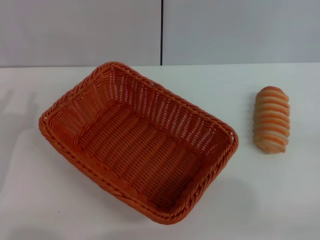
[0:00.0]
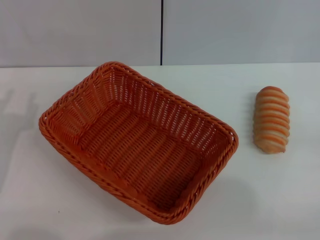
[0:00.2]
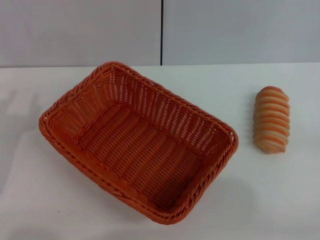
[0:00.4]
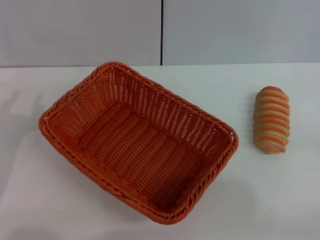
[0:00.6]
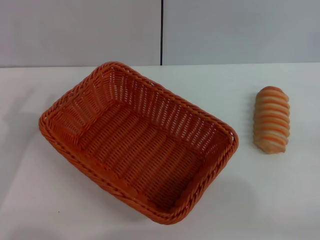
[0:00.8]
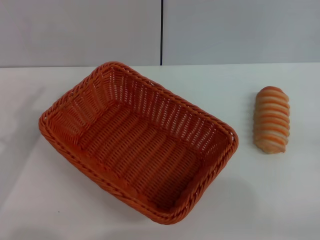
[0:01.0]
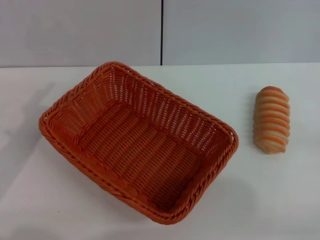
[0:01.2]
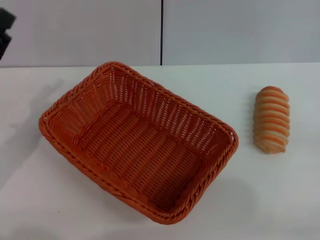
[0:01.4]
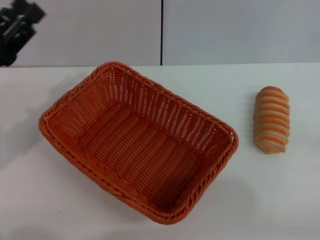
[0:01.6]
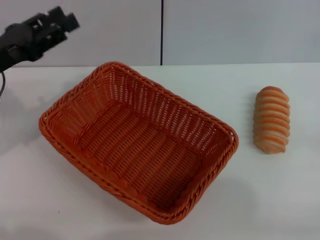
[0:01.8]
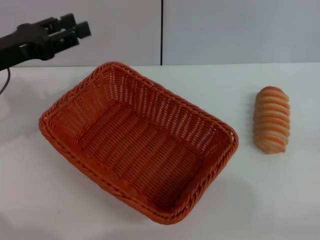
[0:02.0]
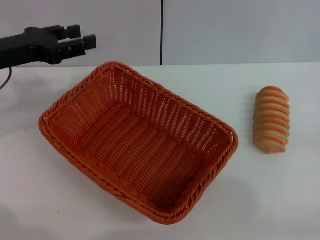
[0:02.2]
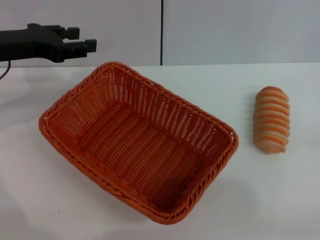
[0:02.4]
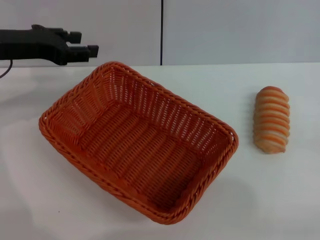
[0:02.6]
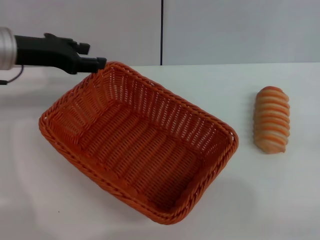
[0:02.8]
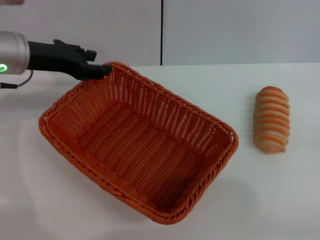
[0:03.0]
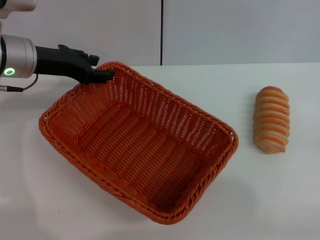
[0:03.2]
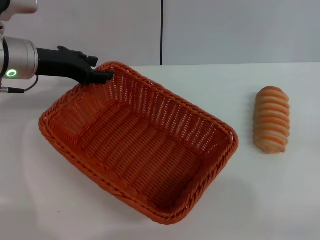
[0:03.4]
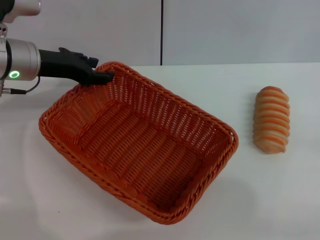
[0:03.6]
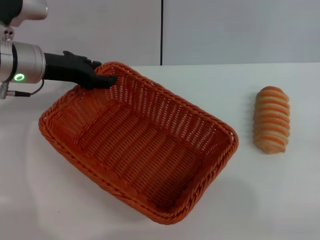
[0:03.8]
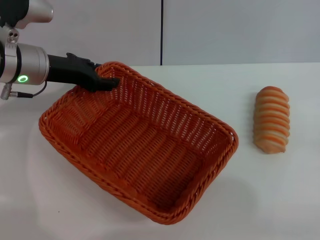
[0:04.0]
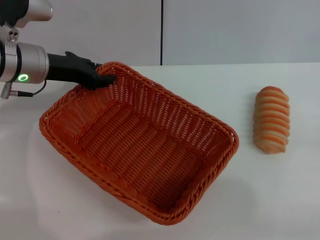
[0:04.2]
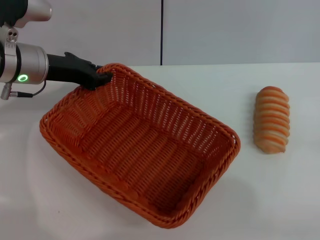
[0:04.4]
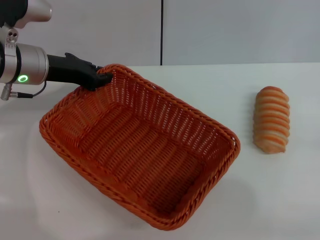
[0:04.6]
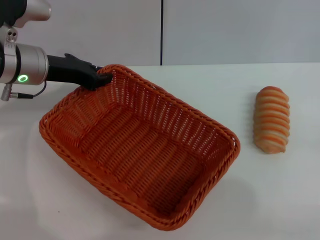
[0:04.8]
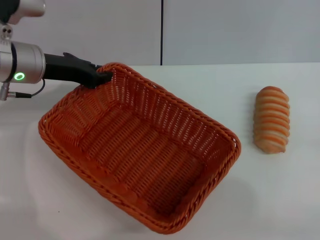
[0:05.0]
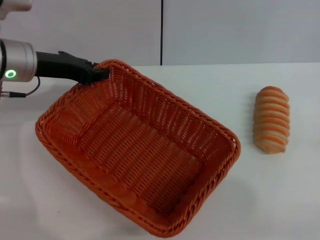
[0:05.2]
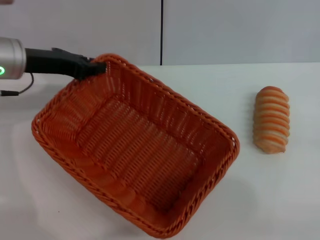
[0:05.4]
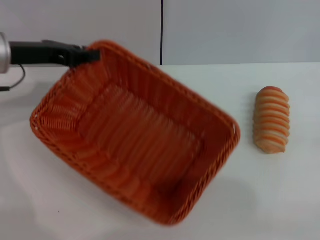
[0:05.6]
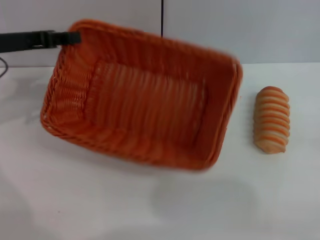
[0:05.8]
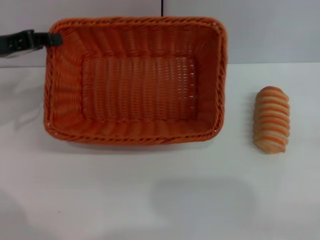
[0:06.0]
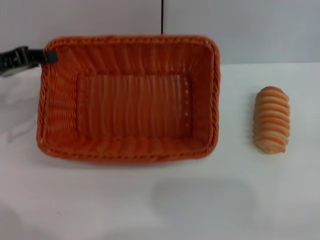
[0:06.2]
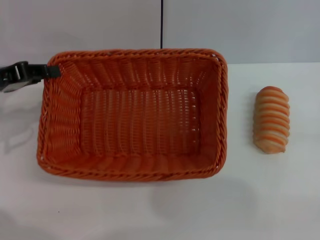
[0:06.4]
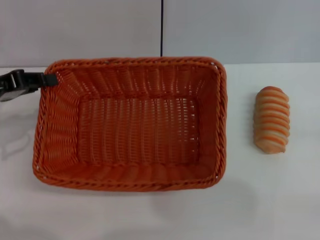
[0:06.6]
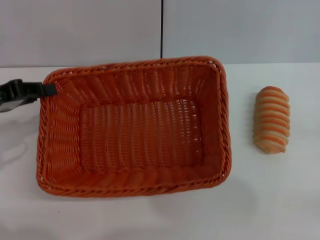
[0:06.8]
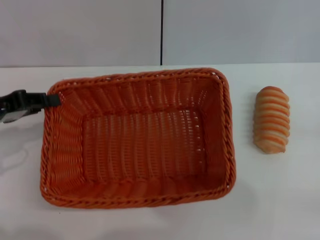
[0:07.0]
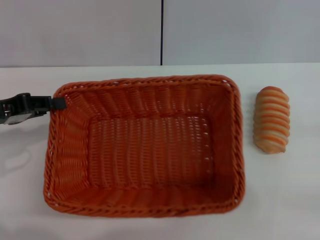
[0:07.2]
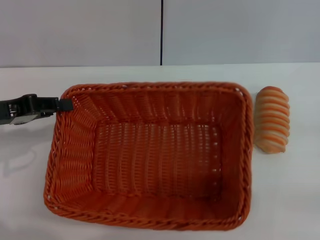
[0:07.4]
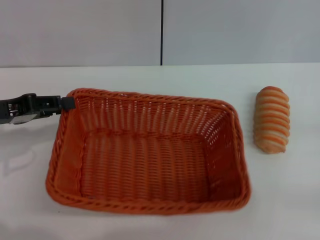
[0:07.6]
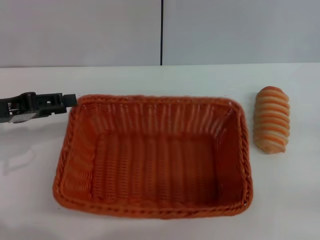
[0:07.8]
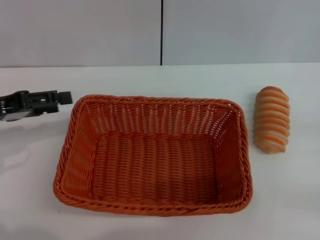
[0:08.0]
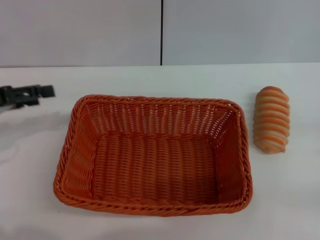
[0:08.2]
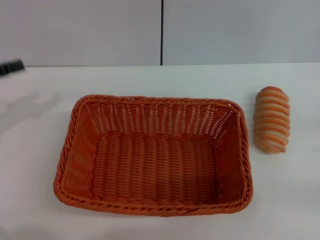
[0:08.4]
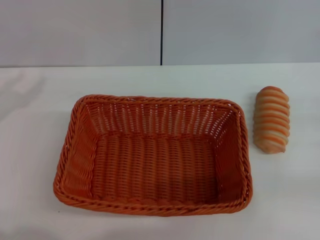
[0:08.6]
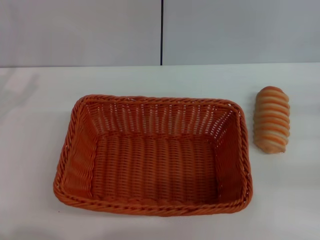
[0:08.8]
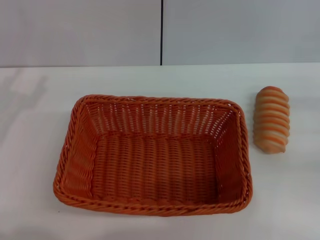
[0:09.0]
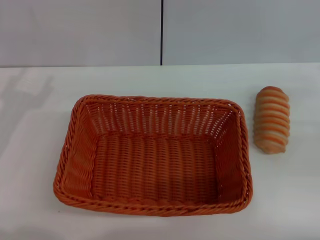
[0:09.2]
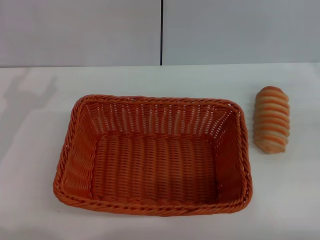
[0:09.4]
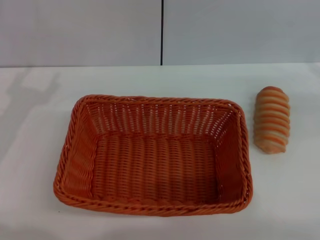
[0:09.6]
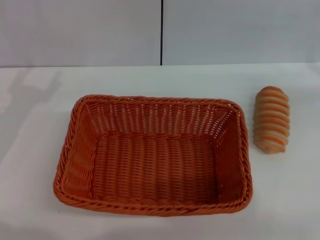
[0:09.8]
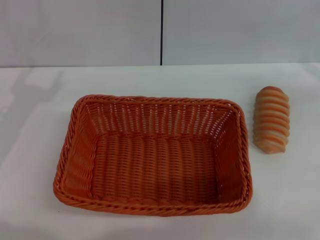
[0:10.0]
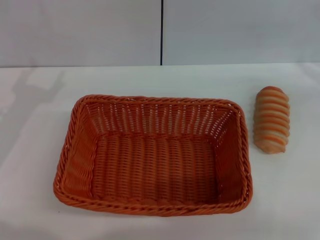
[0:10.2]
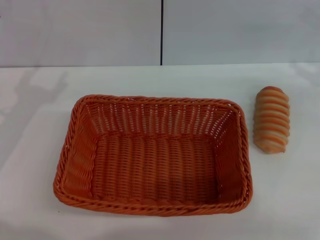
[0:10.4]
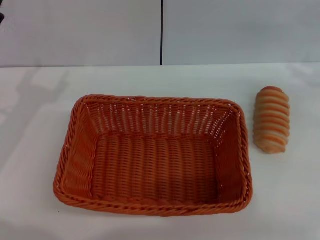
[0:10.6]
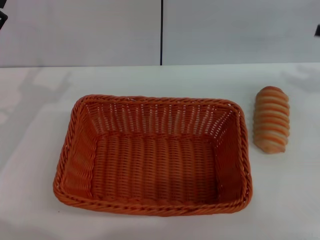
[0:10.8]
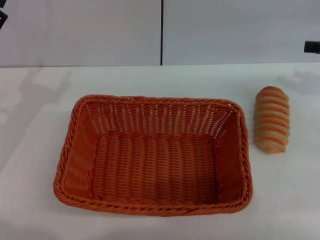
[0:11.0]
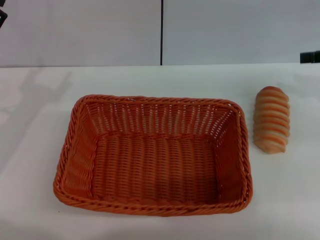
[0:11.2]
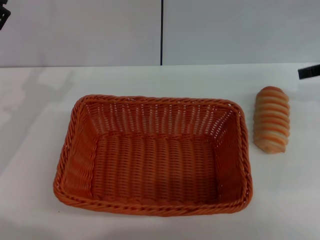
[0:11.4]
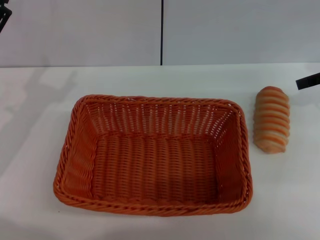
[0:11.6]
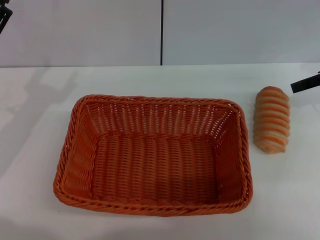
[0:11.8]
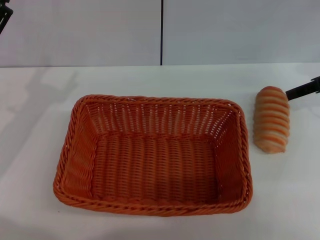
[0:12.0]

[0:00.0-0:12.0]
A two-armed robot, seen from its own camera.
Step, 0:00.0 to 0:06.0: Pick up the light basket with the left gripper.
Step, 0:06.2 to 0:08.2: Place the light basket in the center of view with the left gripper.
0:00.0 to 0:01.6: The left gripper travels forward by approximately 5 cm.
0:01.6 to 0:03.0: The left gripper goes roughly 10 cm forward and to the right.
0:03.0 to 0:04.4: The left gripper closes its fingers.
0:04.4 to 0:06.0: The left gripper shifts approximately 10 cm to the left.
0:06.0 to 0:07.6: The left gripper moves backward, approximately 5 cm.
0:07.6 to 0:09.0: The left gripper changes place by some 5 cm, and opens. Meanwhile the right gripper moves forward, roughly 5 cm.

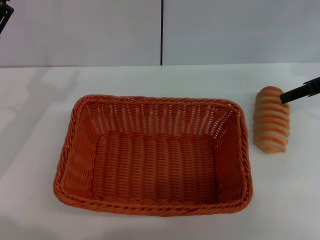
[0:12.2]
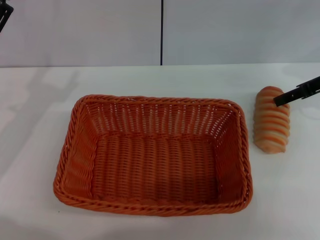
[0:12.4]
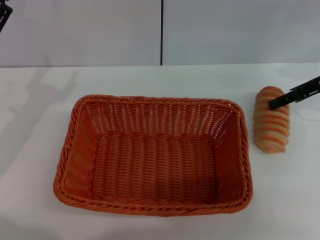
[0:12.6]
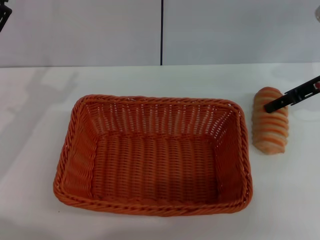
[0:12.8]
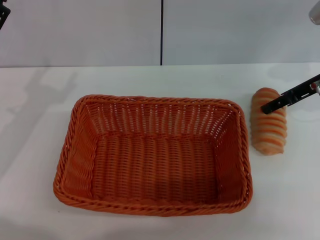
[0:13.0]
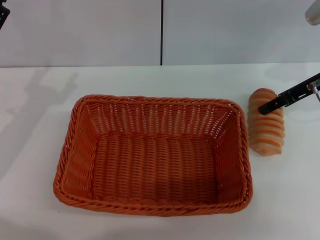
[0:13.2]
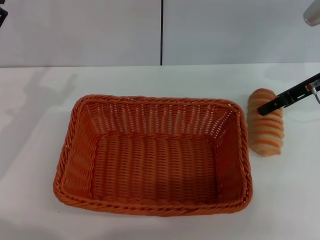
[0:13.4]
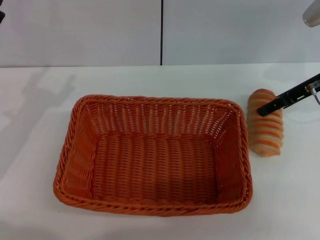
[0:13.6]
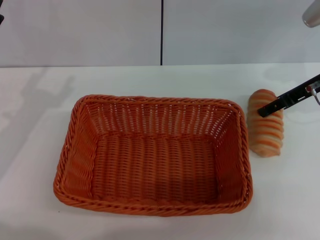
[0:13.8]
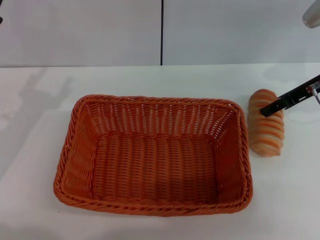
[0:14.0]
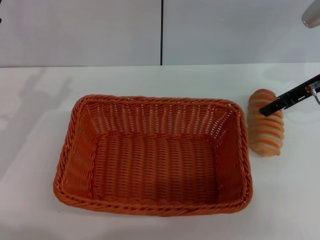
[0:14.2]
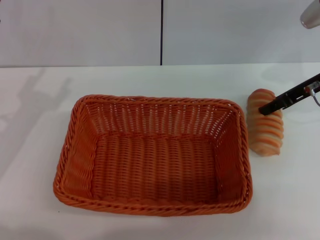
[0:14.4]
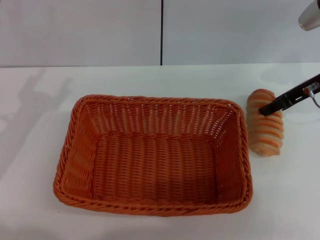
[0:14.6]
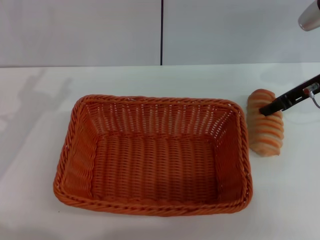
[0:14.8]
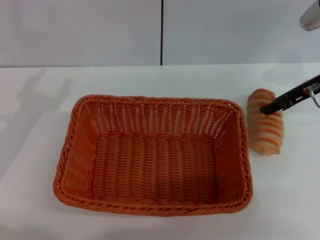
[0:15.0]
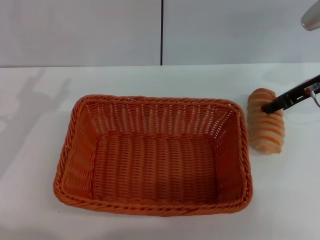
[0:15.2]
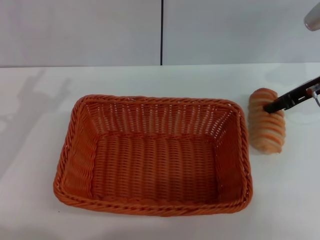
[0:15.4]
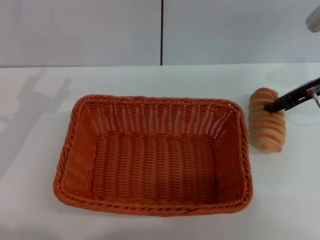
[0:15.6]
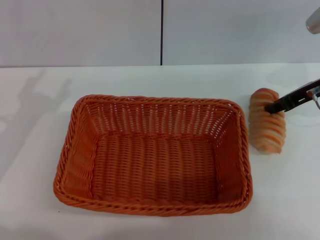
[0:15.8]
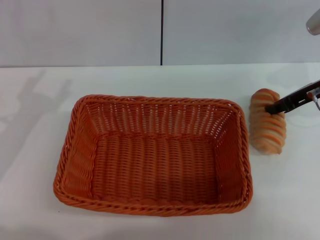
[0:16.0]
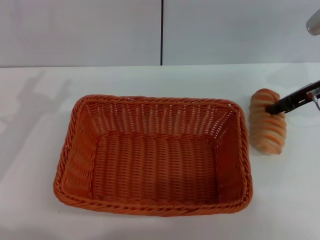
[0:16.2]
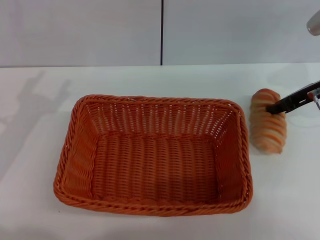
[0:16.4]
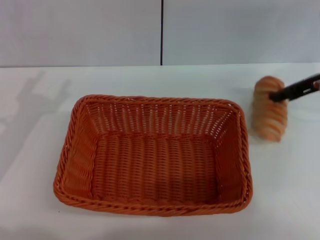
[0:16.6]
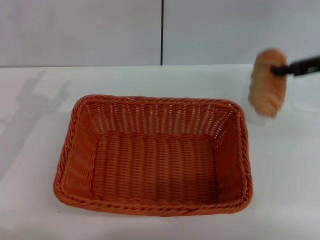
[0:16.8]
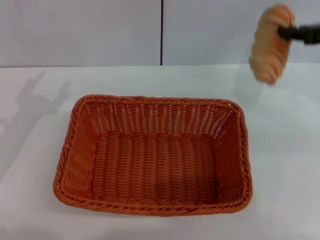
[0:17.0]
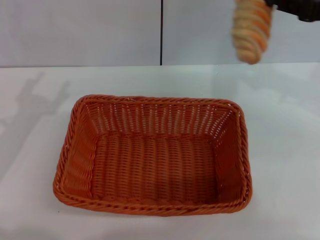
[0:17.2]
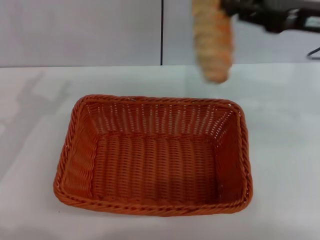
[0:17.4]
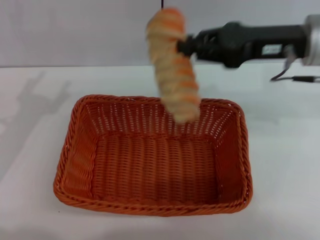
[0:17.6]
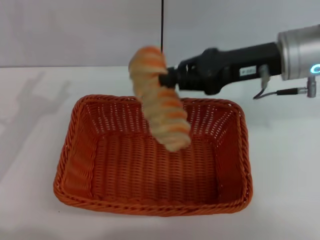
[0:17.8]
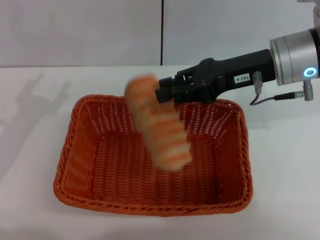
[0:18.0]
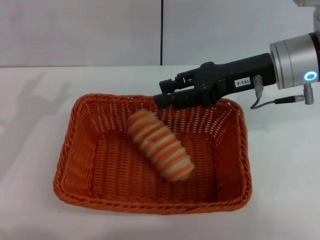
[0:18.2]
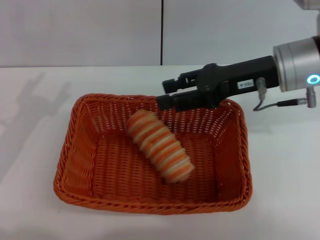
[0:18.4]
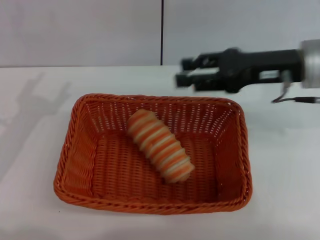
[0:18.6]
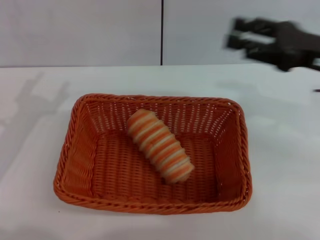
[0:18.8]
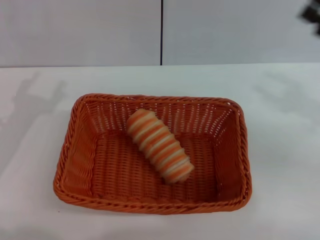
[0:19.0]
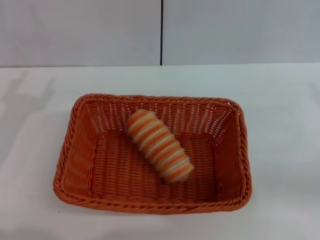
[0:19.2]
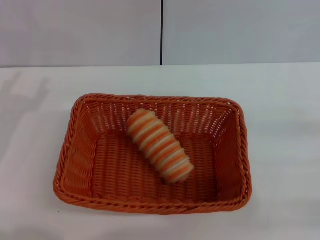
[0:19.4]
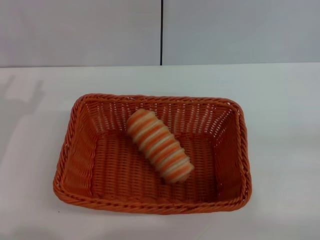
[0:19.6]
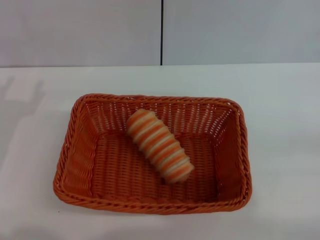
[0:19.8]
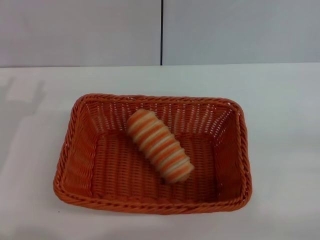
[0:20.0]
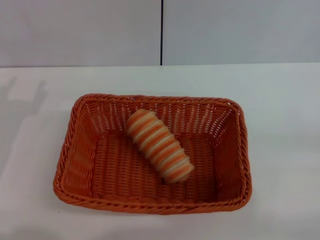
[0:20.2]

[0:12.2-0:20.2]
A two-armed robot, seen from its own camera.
Step, 0:12.2 to 0:17.0: Pick up the long bread with the right gripper.
Step, 0:17.2 to 0:18.4: Place the long bread into the light basket with the right gripper.
0:12.2 to 0:13.8: The grippers make only small movements.
0:13.8 to 0:15.4: The right gripper closes.
0:15.4 to 0:17.0: The right gripper travels upward by approximately 5 cm.
0:17.0 to 0:18.6: The right gripper moves to the left, roughly 10 cm, and opens.
0:18.6 to 0:20.2: The right gripper is displaced to the right, backward and downward by some 25 cm.

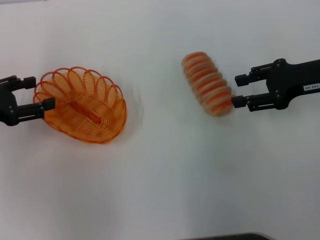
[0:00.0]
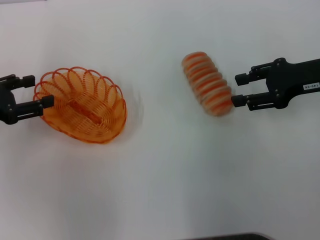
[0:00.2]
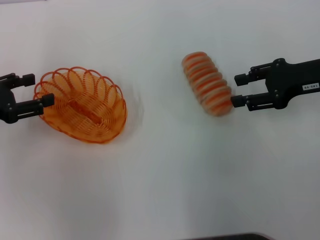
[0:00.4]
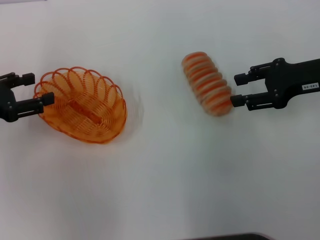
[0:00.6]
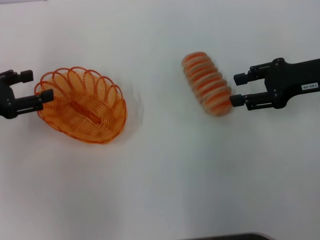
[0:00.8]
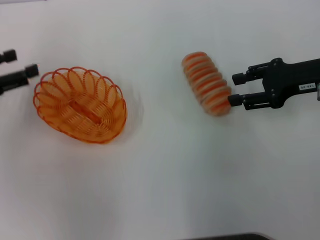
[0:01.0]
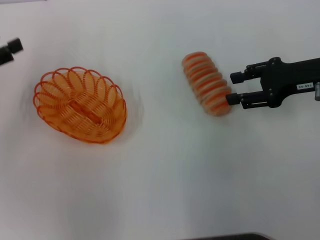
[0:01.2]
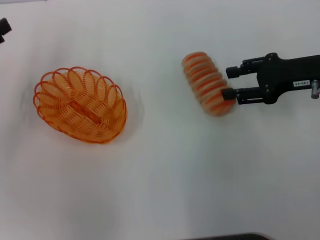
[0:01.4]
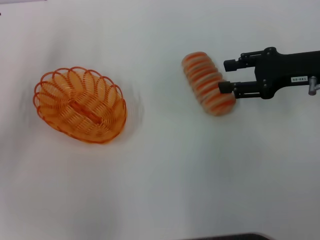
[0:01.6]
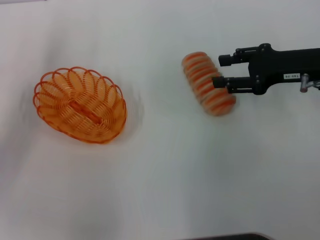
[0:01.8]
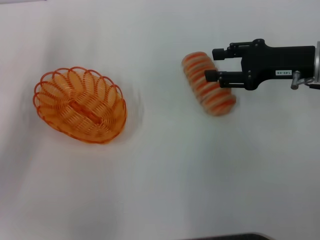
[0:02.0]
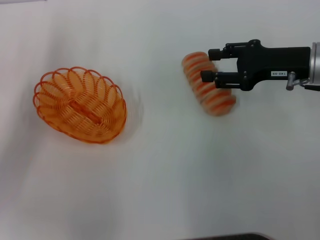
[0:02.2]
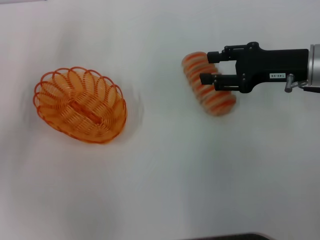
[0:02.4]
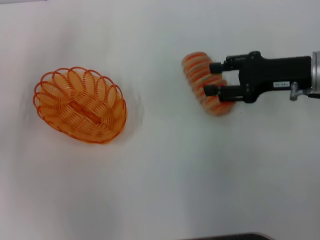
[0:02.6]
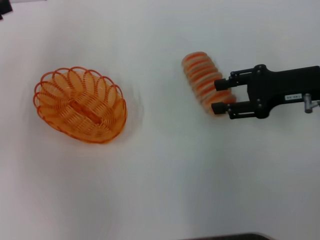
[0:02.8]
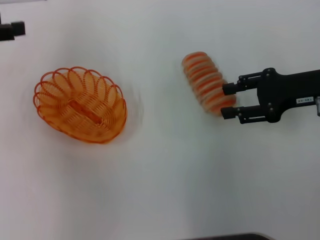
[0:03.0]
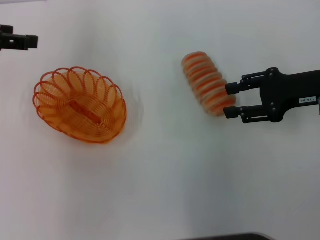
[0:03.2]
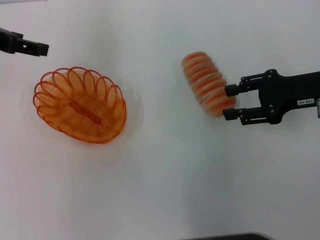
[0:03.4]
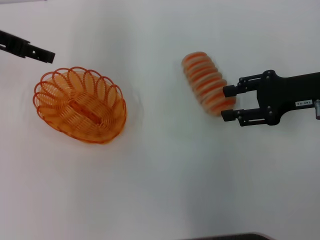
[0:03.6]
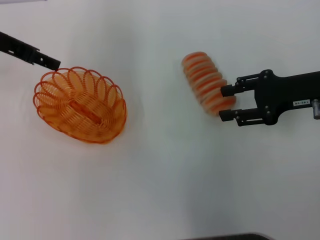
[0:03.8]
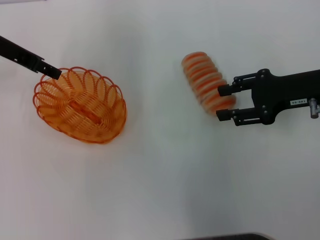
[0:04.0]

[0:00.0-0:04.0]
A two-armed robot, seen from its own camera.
0:02.6 to 0:04.0: The left gripper travels to the right and forward by roughly 15 cm.
